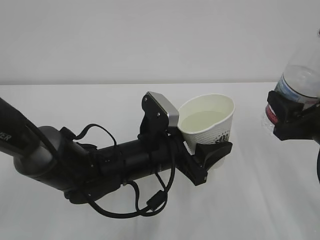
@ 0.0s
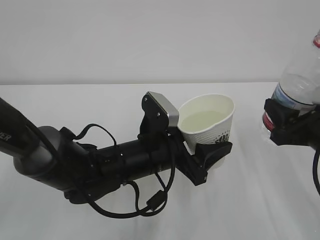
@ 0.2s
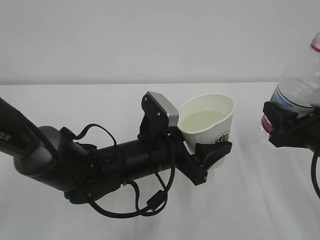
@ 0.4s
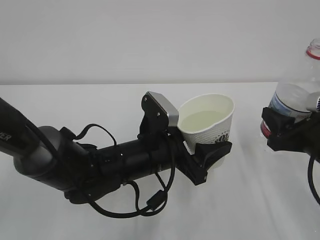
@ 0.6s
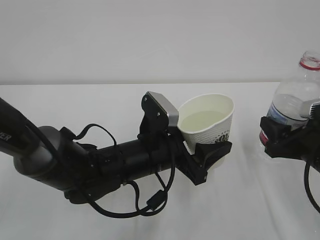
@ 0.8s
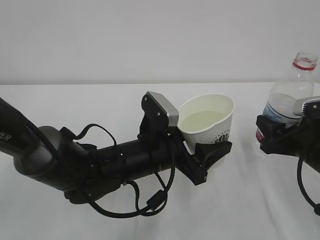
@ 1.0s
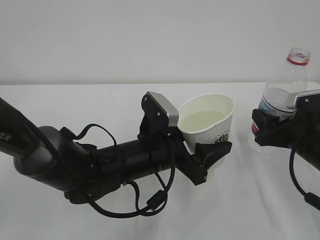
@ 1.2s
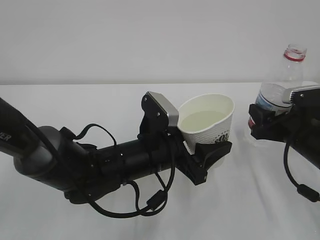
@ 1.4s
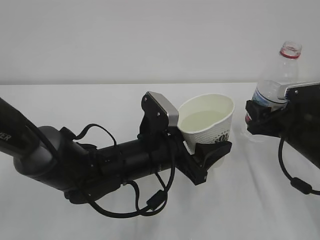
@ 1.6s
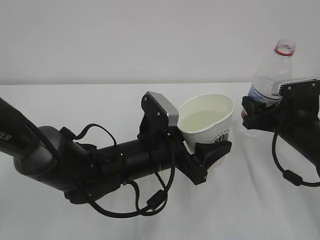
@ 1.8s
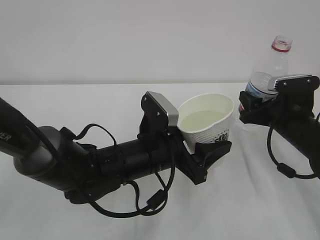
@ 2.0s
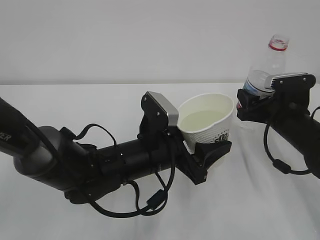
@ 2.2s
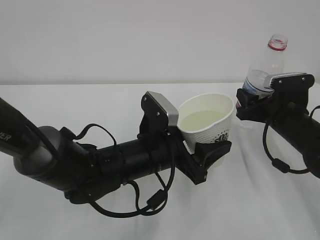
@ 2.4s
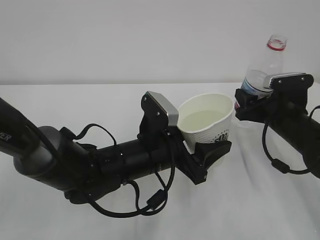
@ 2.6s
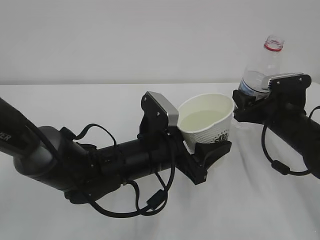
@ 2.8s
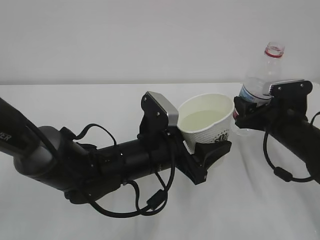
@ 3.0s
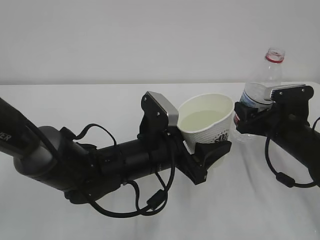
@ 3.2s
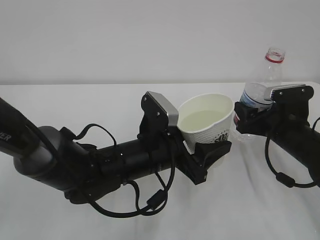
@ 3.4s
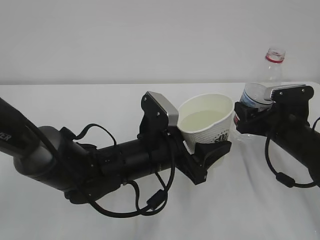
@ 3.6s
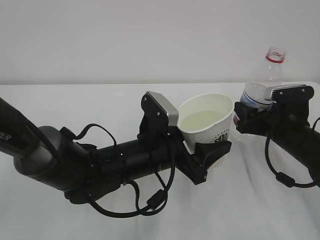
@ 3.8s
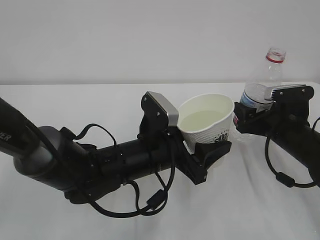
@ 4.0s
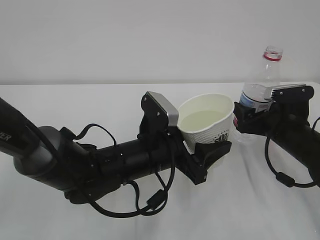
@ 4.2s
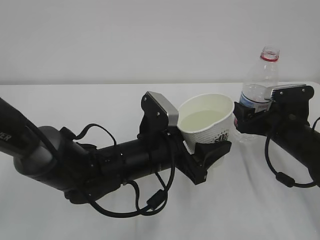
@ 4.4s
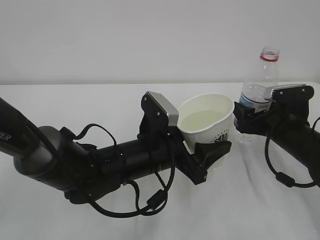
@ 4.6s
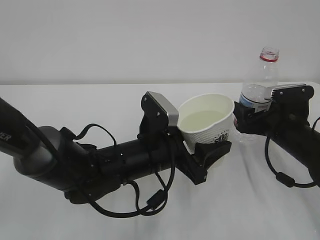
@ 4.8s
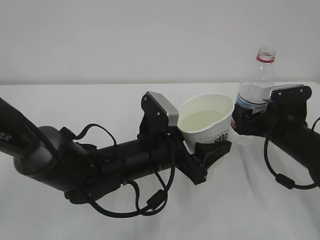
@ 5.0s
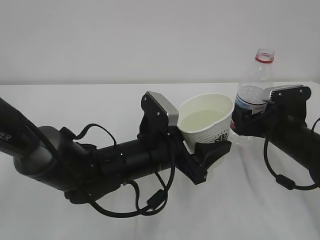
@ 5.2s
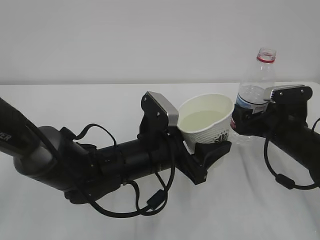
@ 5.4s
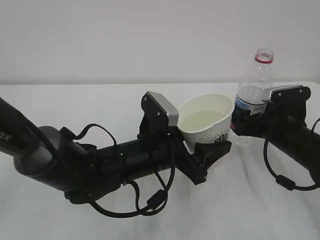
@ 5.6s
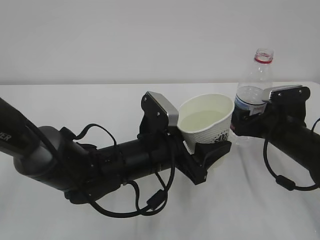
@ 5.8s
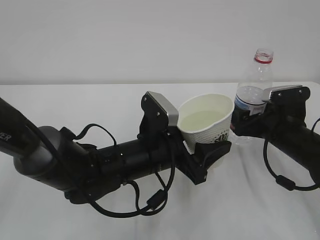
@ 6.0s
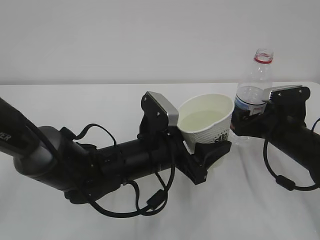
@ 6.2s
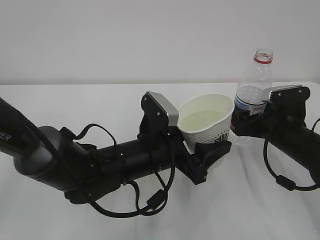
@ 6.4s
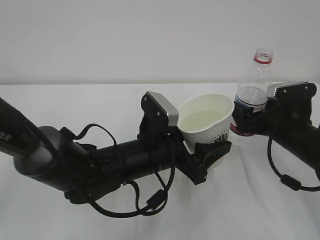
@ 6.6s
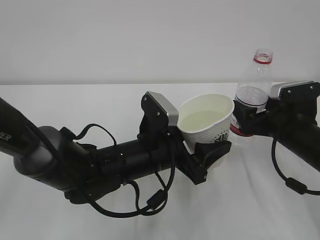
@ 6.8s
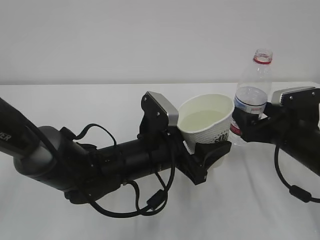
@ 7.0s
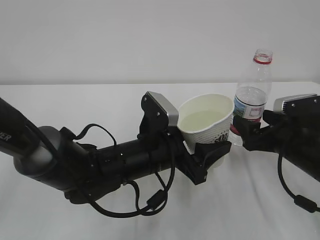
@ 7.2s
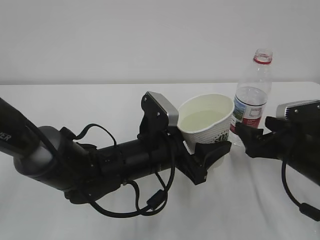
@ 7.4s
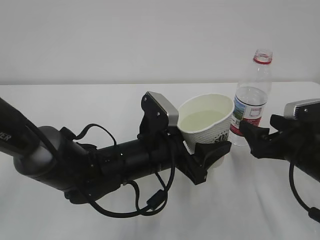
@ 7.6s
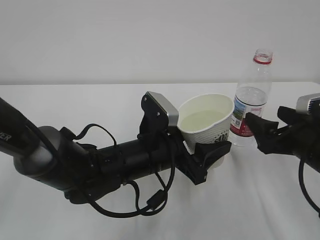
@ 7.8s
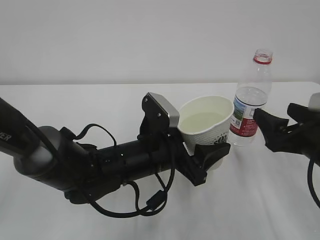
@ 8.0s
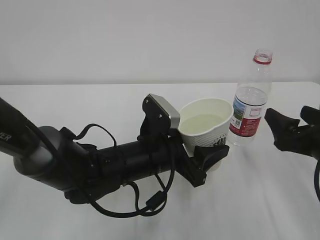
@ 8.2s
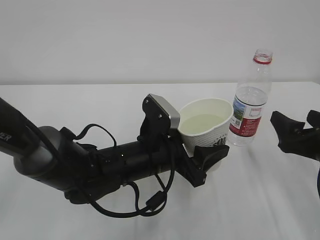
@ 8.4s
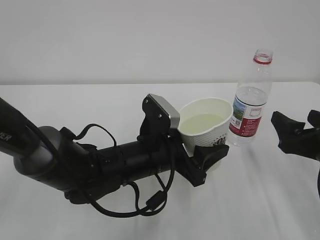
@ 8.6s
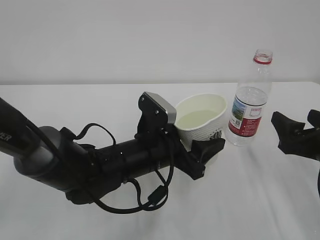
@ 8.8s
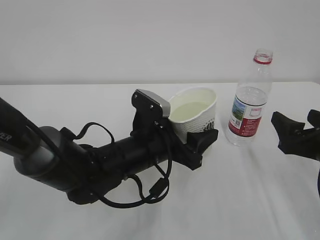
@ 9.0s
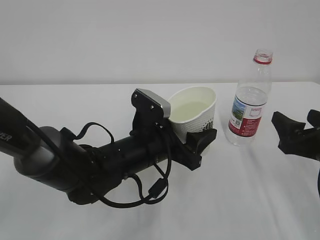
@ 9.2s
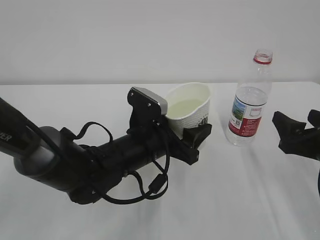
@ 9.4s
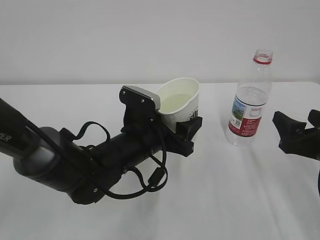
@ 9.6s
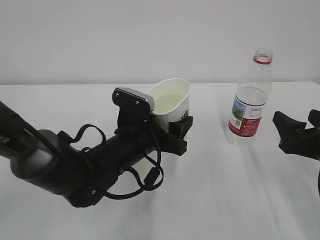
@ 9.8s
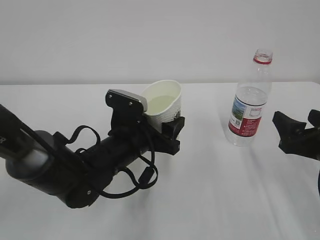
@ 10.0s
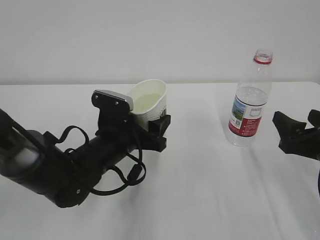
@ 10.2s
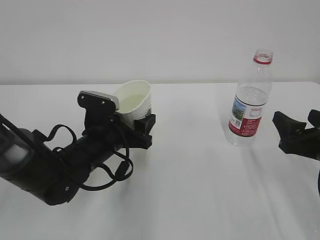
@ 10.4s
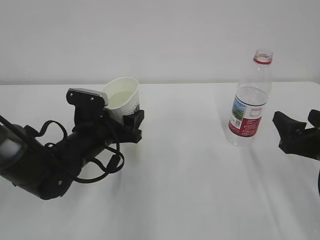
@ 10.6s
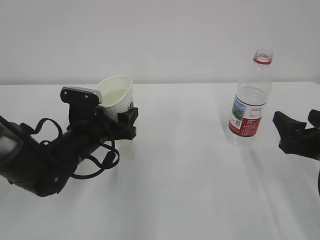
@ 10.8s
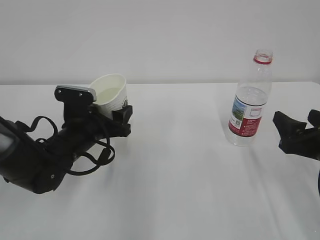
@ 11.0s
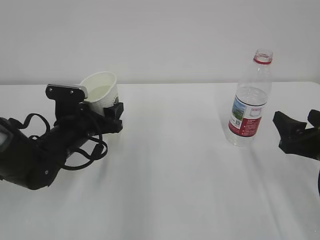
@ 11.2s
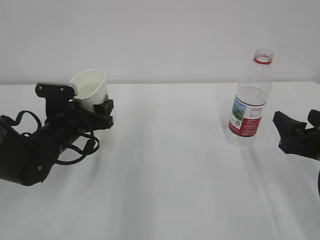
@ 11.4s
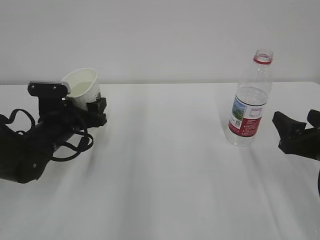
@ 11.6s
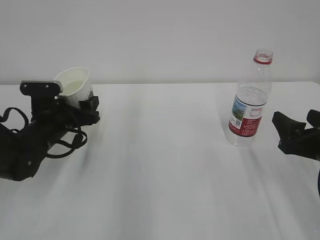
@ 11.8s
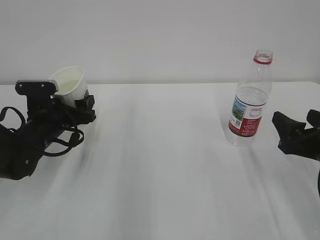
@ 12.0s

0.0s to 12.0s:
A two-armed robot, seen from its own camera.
0.0s to 1.6s: The right gripper goes approximately 10 cm forward and downward.
1.6s to 3.0s: There are only small adjustments of the grippers.
3.0s to 4.4s: The right gripper opens its fingers.
4.4s to 6.0s: The two grippers keep their place.
6.0s to 7.6s: The right gripper travels backward by some 5 cm.
7.6s to 9.0s: The right gripper changes place by some 5 cm.
9.0s to 10.4s: The left gripper goes roughly 10 cm to the left.
10.4s to 12.0s: The left gripper travels to the left by some 10 cm.

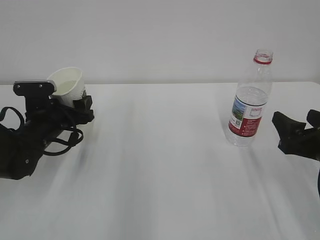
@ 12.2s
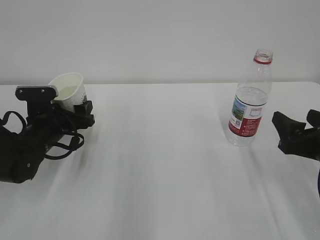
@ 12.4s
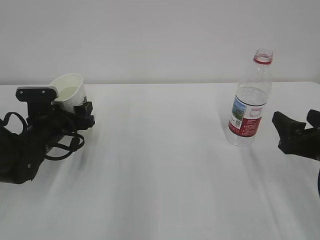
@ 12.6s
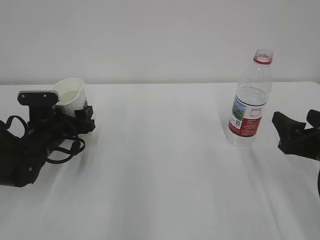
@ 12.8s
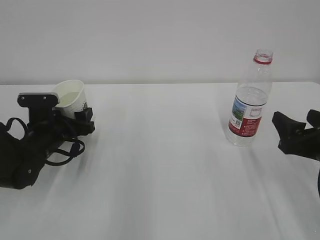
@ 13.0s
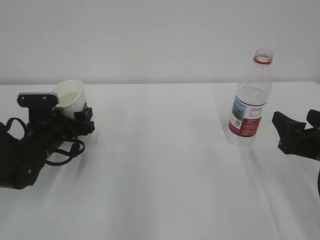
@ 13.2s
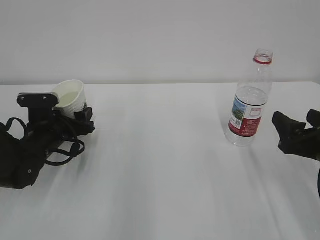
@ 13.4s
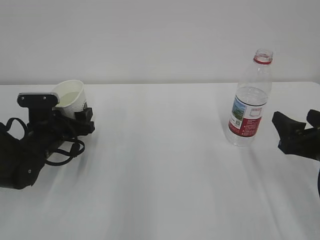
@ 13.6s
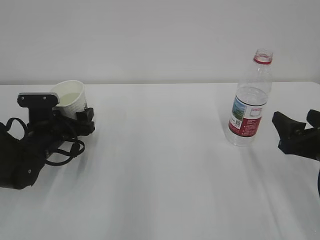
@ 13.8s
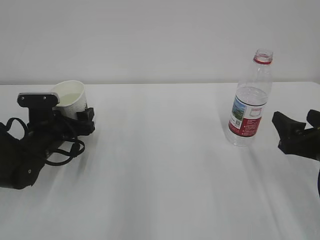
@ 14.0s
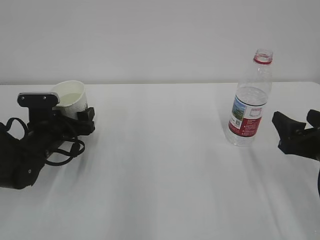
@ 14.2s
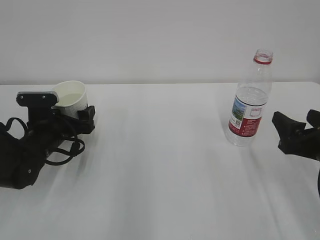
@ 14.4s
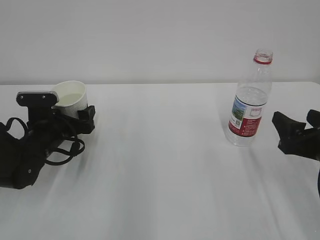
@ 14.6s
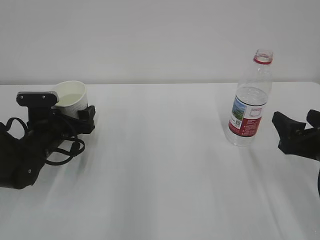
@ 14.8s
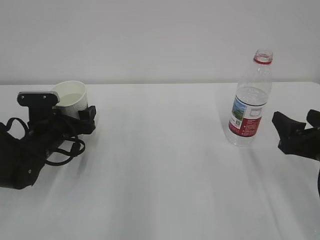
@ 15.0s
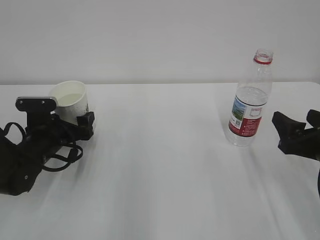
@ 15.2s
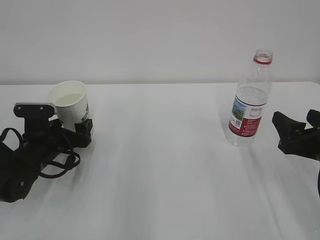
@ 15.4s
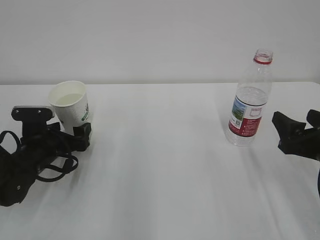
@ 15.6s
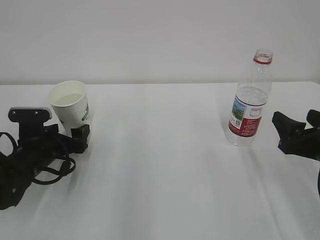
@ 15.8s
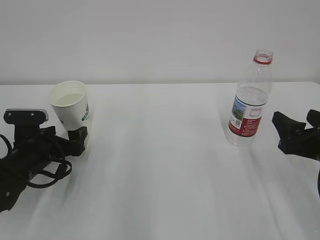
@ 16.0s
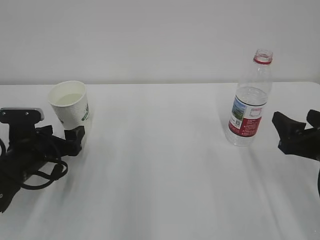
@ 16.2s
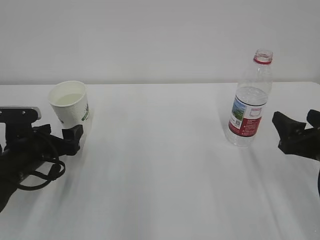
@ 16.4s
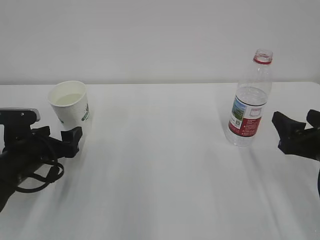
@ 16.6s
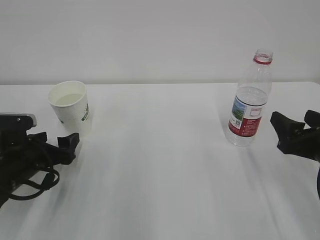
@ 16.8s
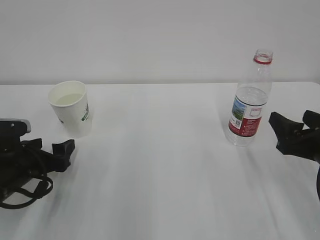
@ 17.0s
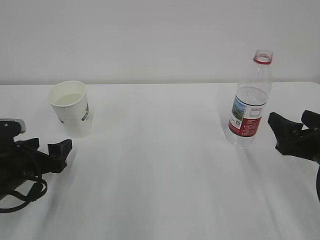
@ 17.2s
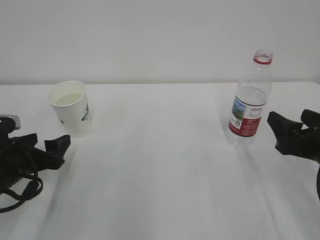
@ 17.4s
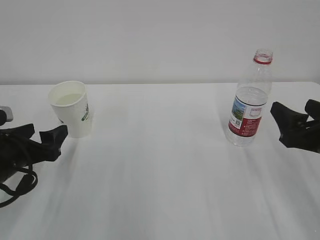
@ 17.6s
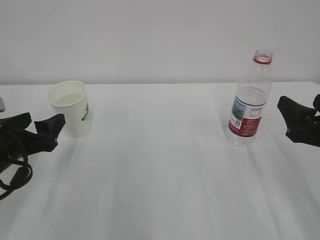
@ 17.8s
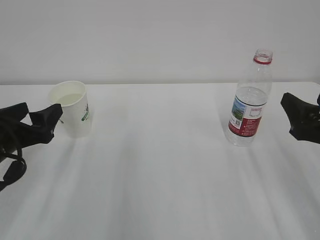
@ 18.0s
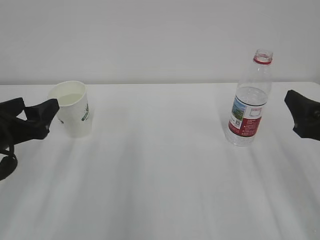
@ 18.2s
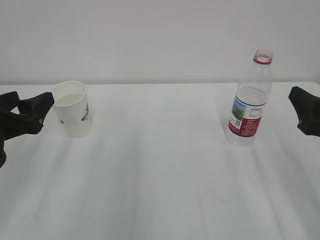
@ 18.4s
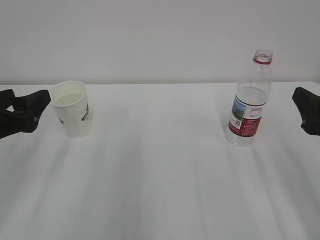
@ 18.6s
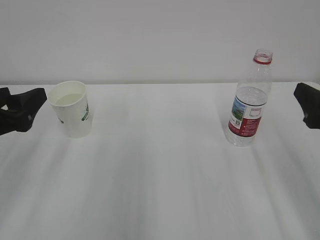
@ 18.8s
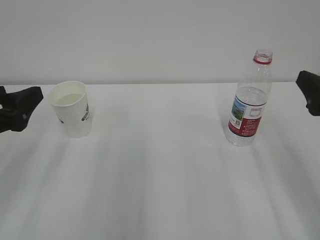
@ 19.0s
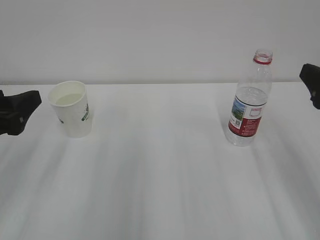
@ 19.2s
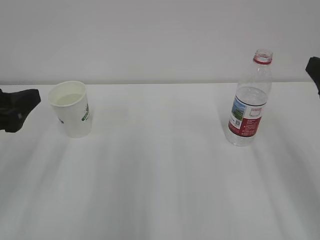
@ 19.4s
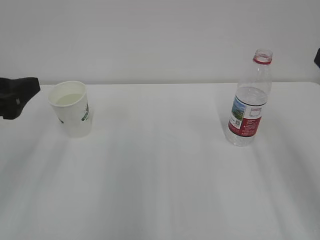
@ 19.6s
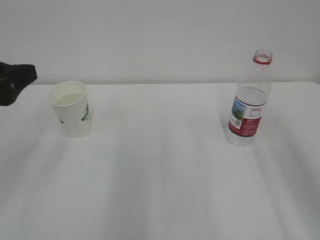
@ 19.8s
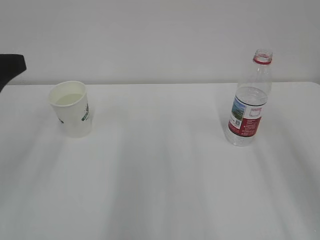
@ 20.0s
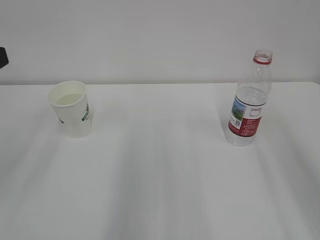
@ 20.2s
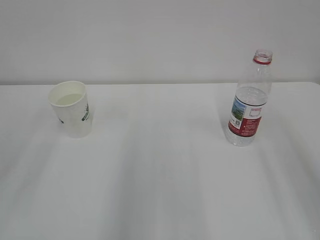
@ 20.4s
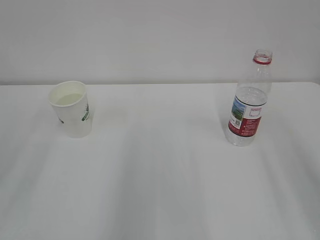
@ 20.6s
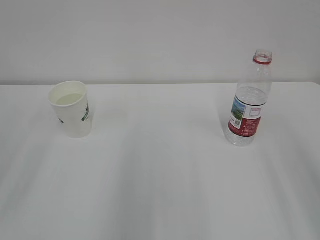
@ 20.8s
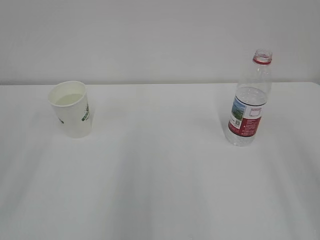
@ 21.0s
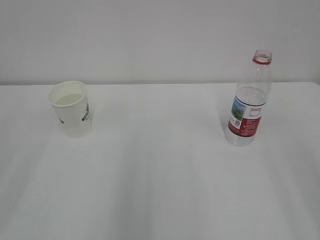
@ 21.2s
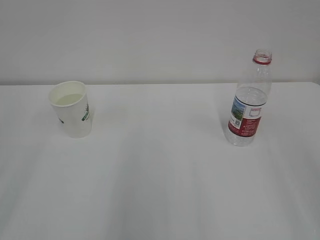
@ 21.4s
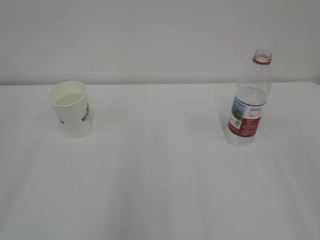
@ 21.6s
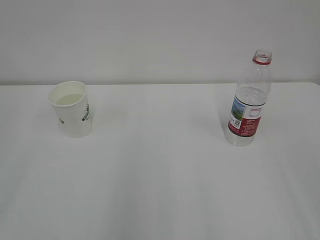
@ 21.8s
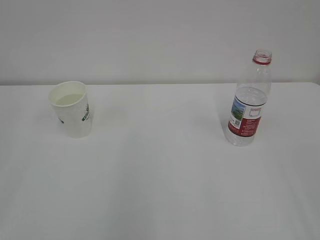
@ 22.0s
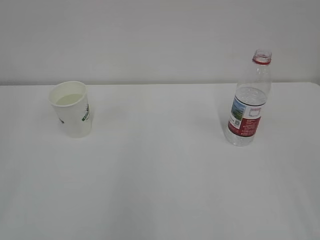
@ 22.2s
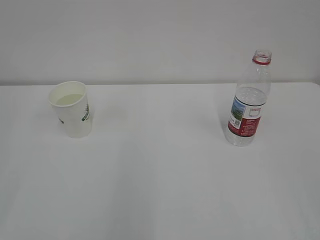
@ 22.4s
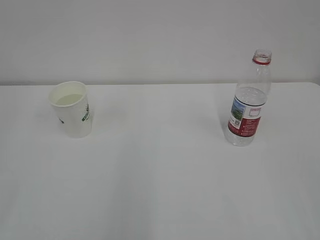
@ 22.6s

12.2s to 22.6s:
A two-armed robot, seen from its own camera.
12.2s to 13.6s: The grippers make only small movements.
13.6s to 15.2s: The left gripper opens its fingers.
15.2s to 16.6s: The left gripper moves backward, about 5 cm.
16.6s to 18.2s: The left gripper heads upward and backward, covering about 10 cm.
18.2s to 19.6s: Both grippers travel together upward, roughly 10 cm.
19.6s to 21.2s: The left gripper goes roughly 15 cm backward and upward.
